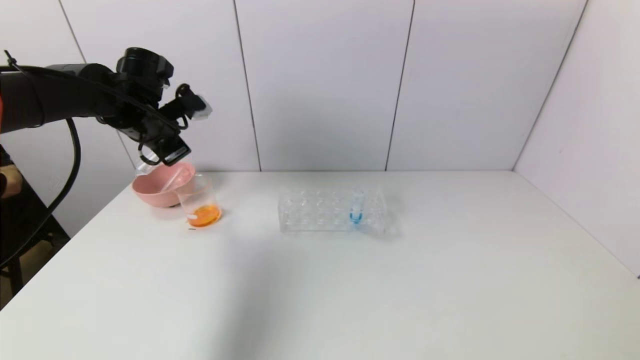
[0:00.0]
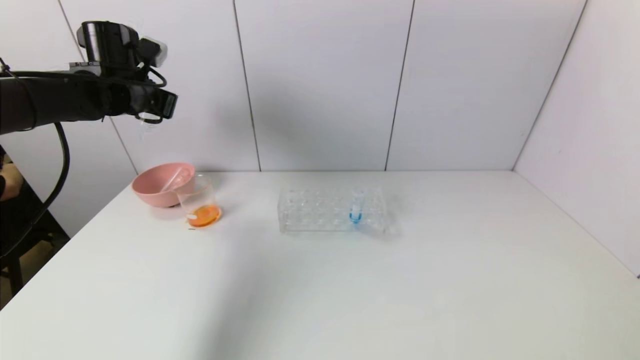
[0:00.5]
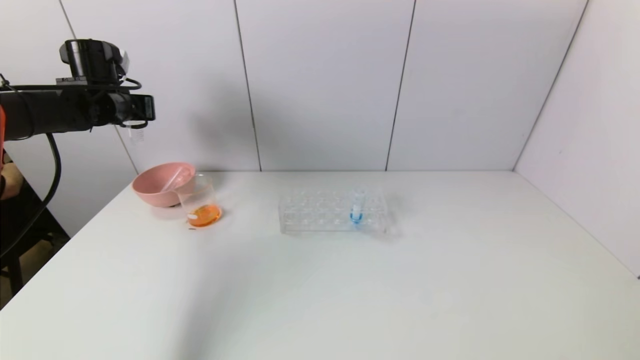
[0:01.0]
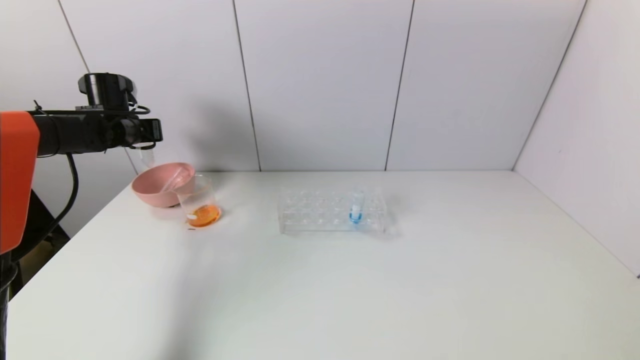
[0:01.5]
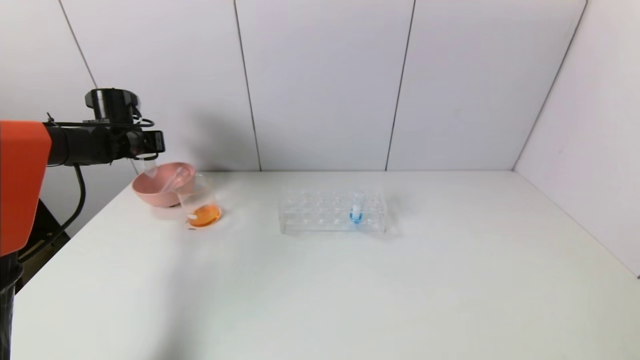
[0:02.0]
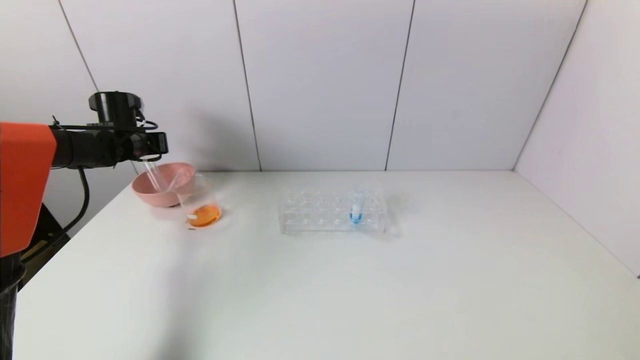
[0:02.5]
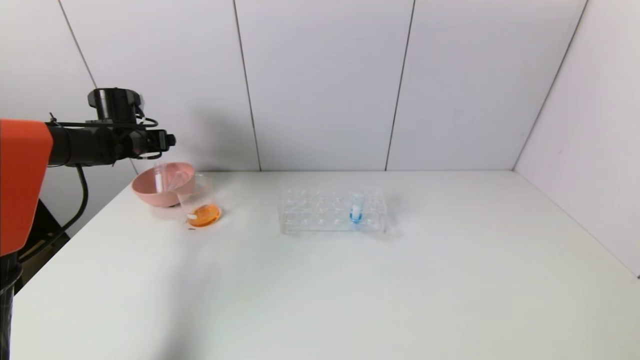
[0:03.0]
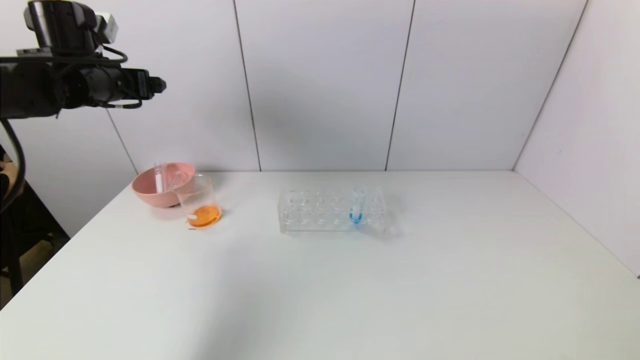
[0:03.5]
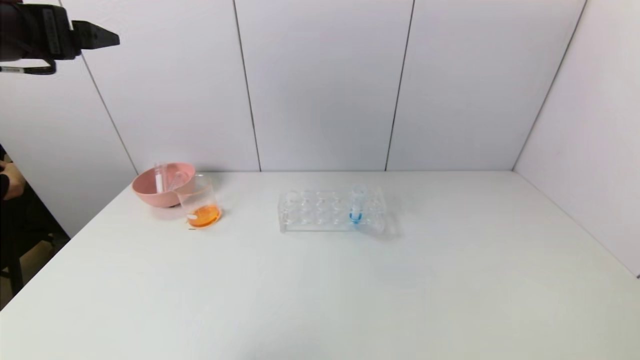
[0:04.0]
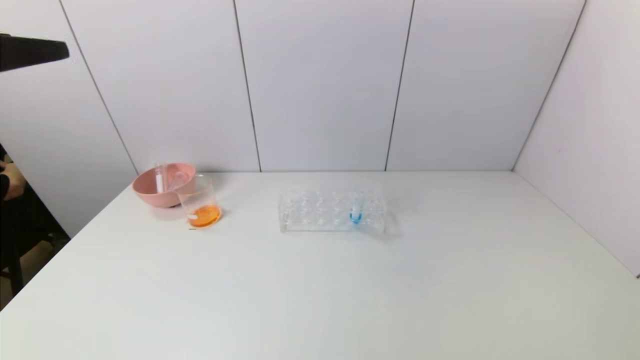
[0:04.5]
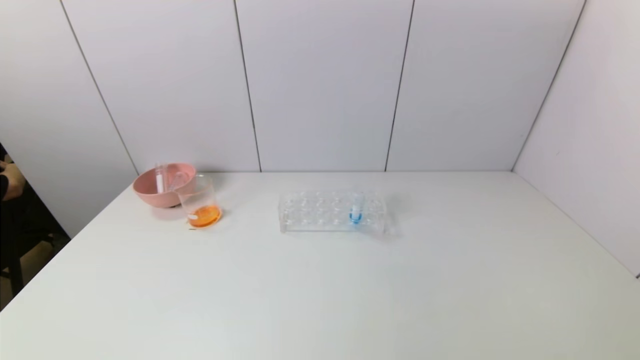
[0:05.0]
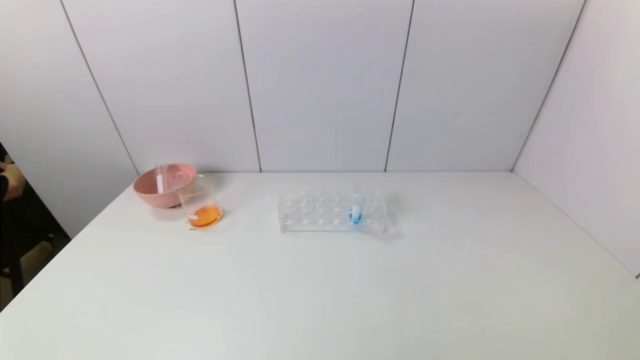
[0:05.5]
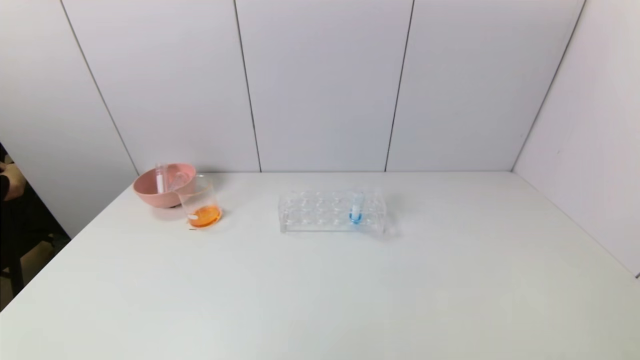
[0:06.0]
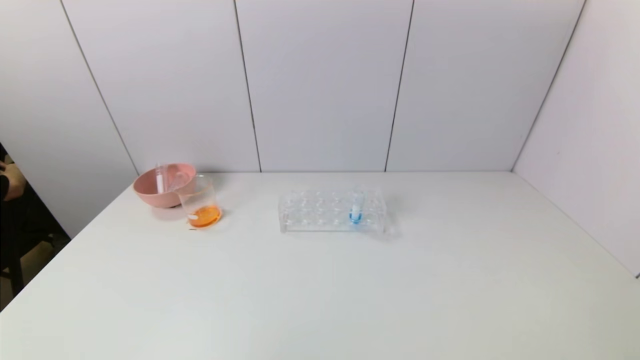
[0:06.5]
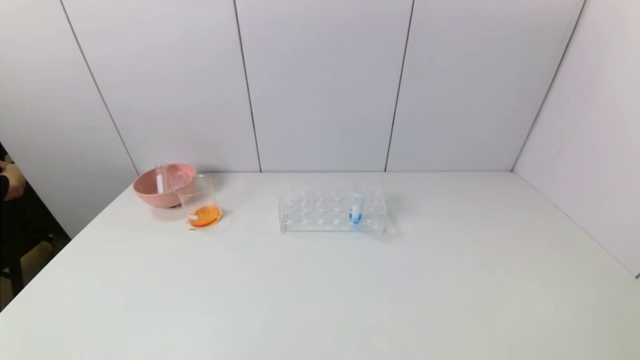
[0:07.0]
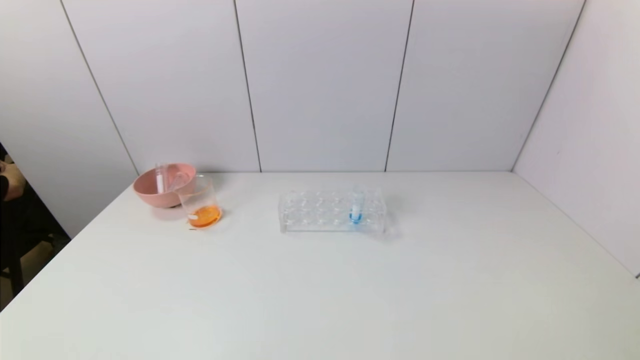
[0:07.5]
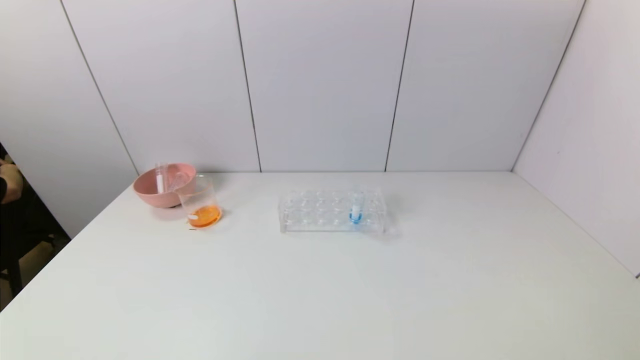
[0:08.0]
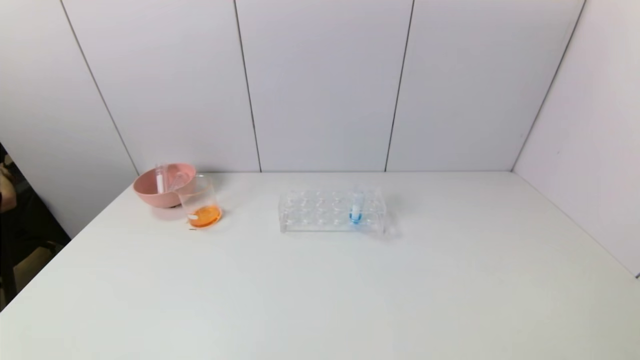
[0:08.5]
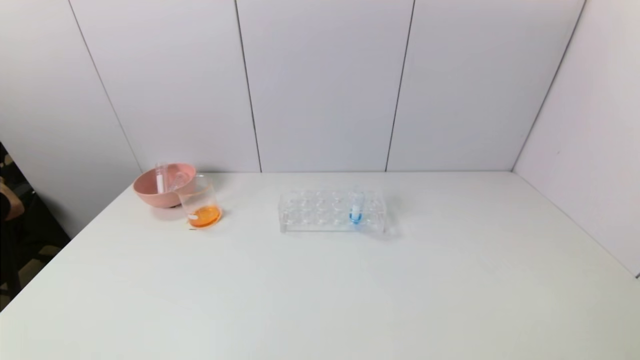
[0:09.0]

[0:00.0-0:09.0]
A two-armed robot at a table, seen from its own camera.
Task of the whole recording: pick up the test tube with yellow pigment and the test tube with red pigment by grippers and pour them into the beaker.
Step, 0:00.0 to 0:02.5: Place the test tube into the pink bowl with the left gripper.
0:00.0 to 0:02.0: The left gripper goes approximately 15 cm to the left, forward and downward.
0:02.0 to 0:04.5: The left gripper travels backward and upward by about 40 cm, and opens.
0:04.5 to 0:07.0: The left gripper moves downward and backward, some 30 cm.
0:07.0 to 0:09.0: The grippers make only small movements.
